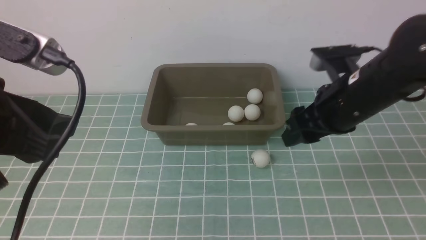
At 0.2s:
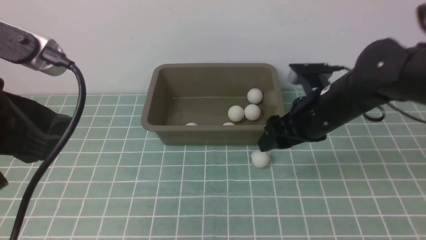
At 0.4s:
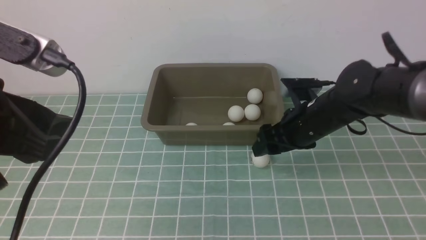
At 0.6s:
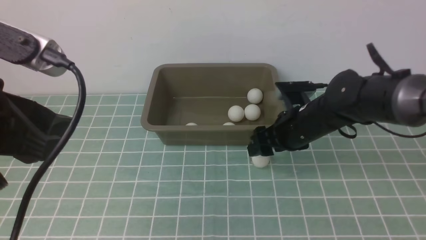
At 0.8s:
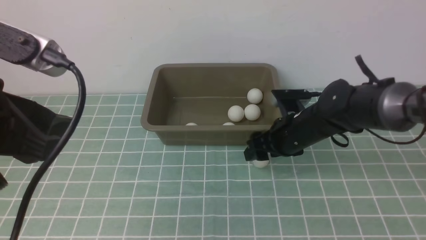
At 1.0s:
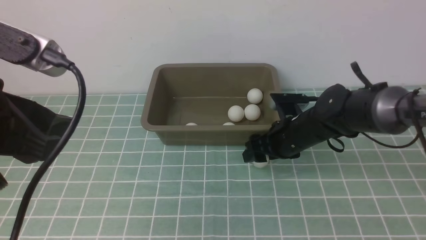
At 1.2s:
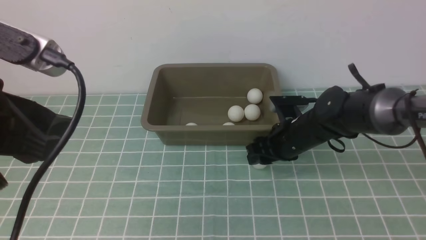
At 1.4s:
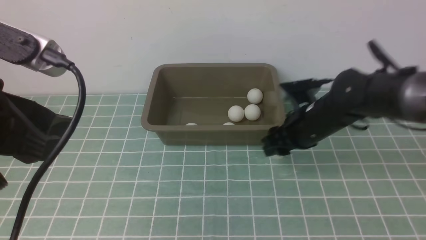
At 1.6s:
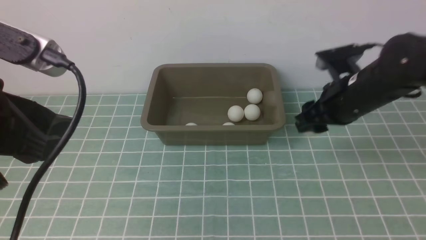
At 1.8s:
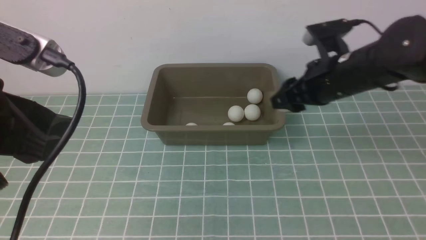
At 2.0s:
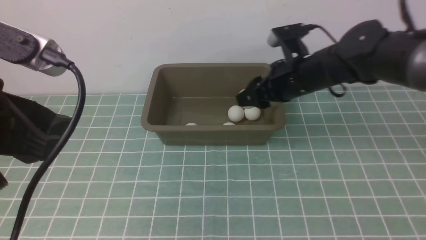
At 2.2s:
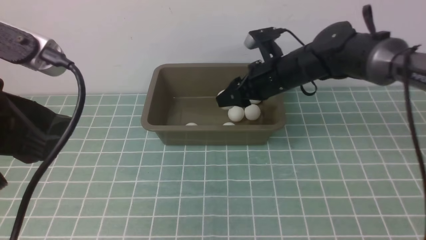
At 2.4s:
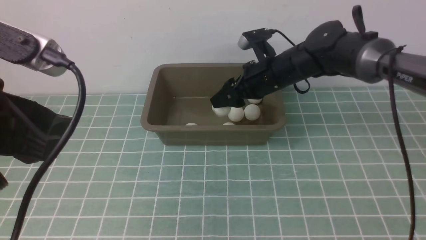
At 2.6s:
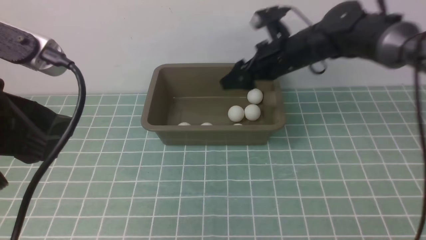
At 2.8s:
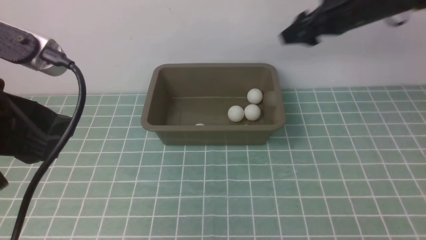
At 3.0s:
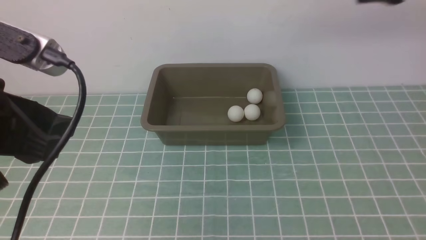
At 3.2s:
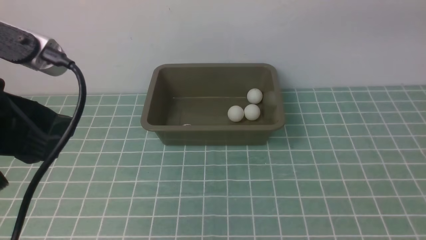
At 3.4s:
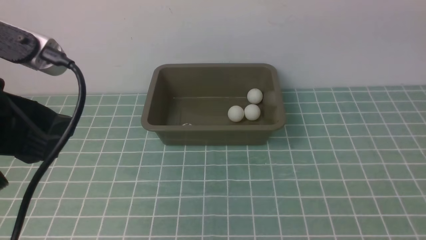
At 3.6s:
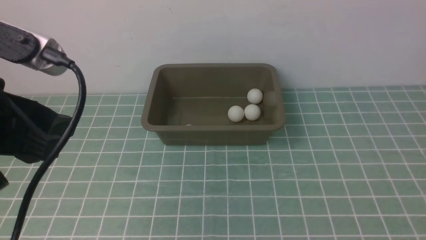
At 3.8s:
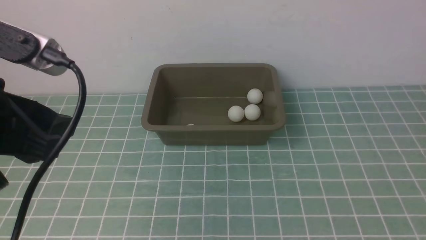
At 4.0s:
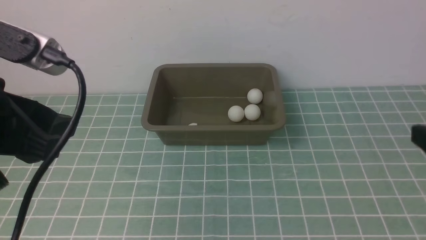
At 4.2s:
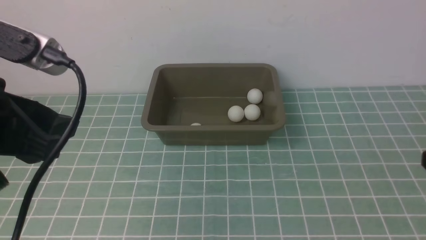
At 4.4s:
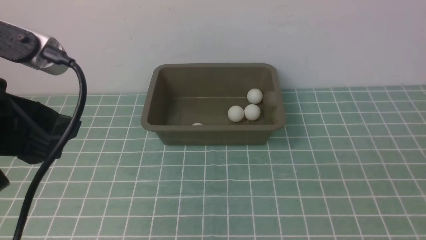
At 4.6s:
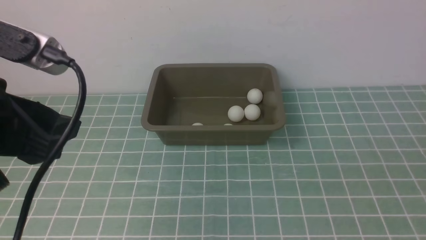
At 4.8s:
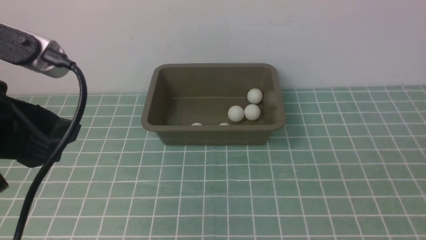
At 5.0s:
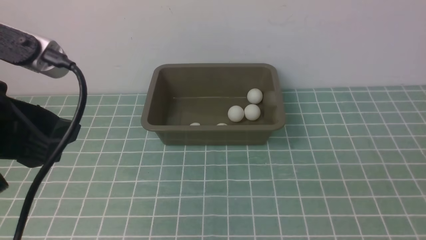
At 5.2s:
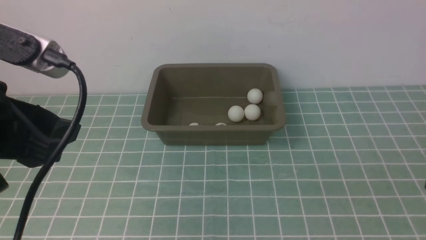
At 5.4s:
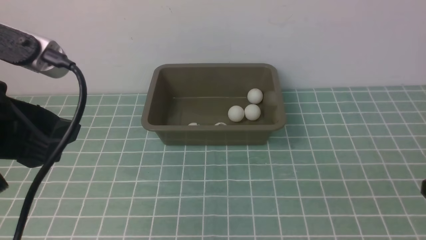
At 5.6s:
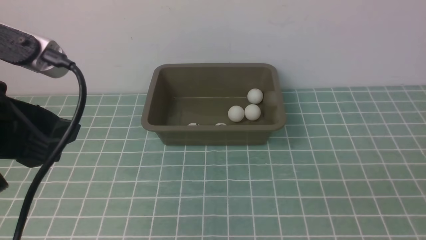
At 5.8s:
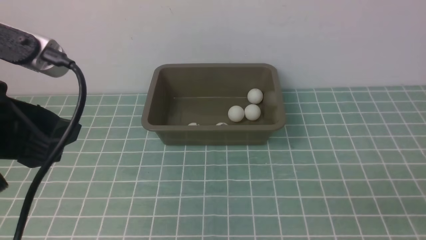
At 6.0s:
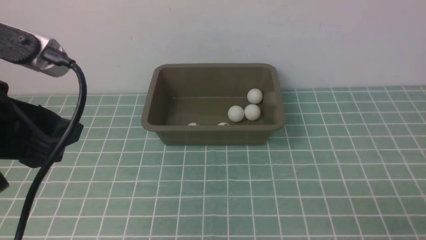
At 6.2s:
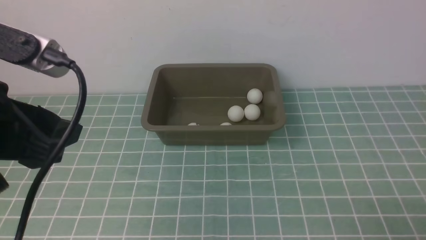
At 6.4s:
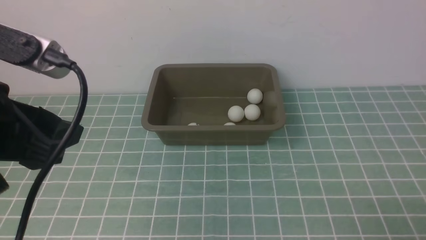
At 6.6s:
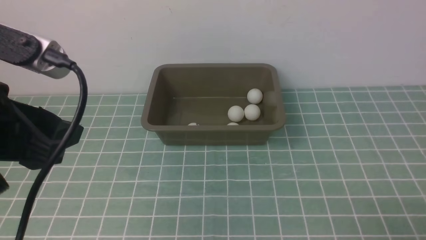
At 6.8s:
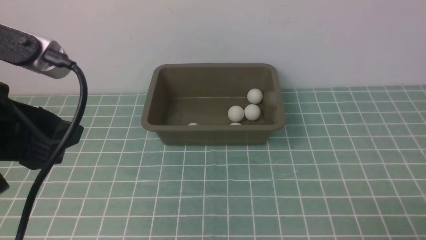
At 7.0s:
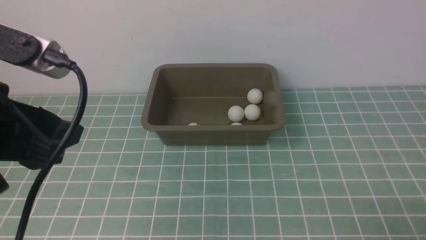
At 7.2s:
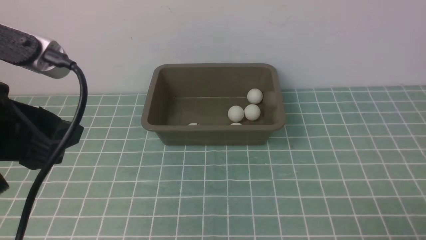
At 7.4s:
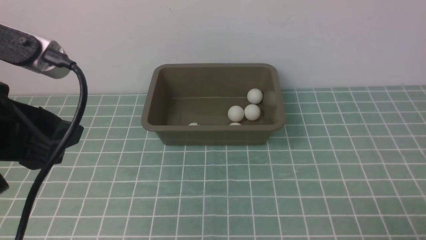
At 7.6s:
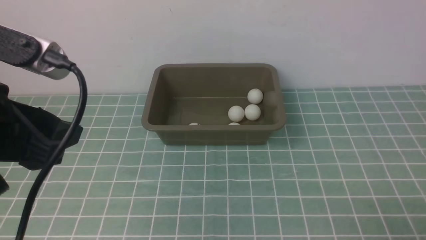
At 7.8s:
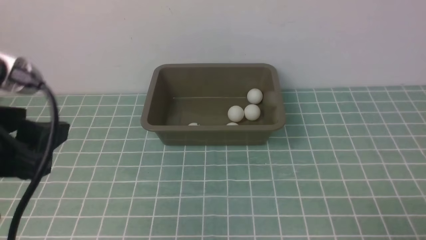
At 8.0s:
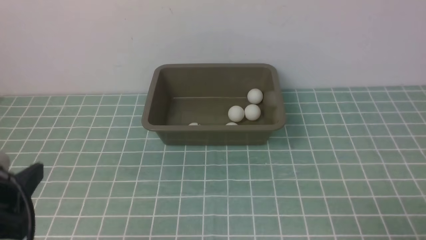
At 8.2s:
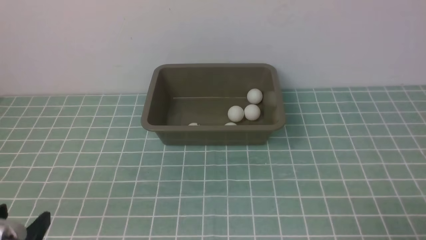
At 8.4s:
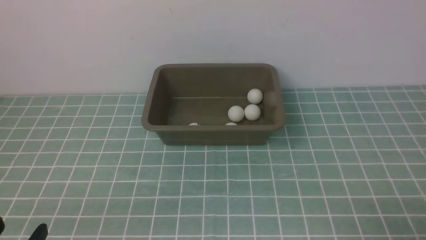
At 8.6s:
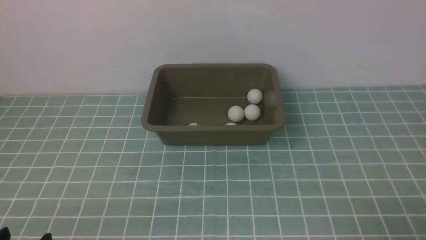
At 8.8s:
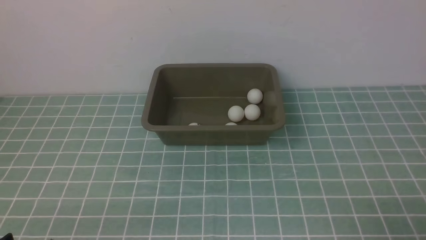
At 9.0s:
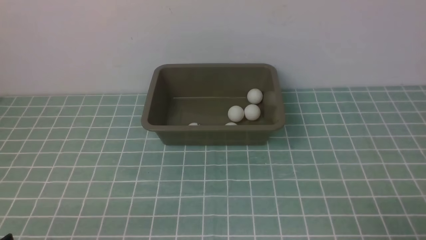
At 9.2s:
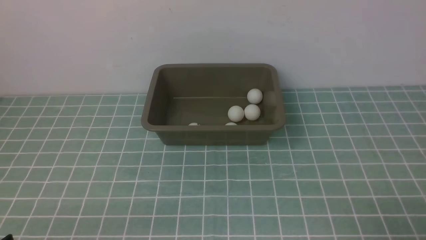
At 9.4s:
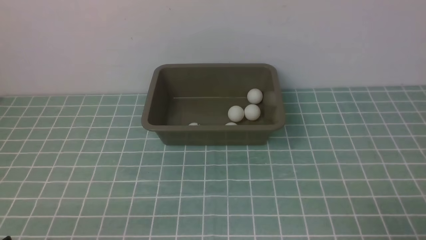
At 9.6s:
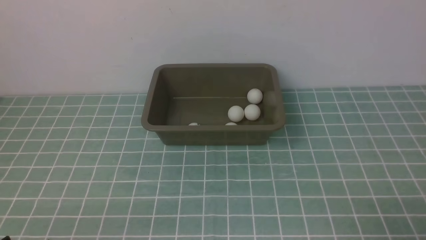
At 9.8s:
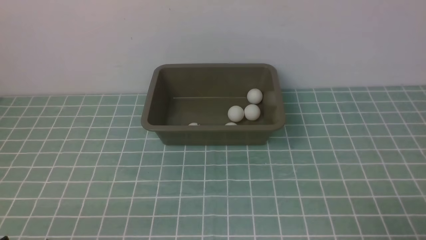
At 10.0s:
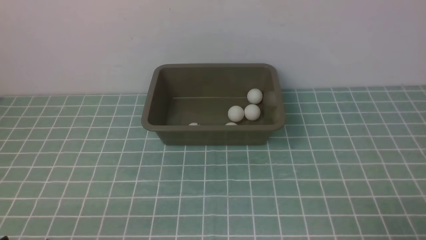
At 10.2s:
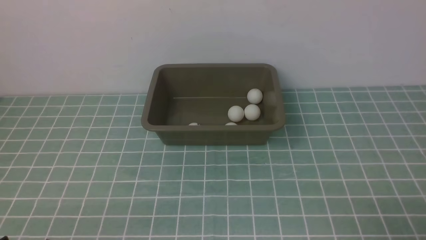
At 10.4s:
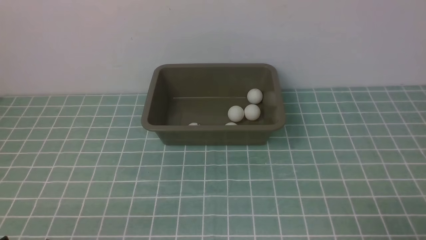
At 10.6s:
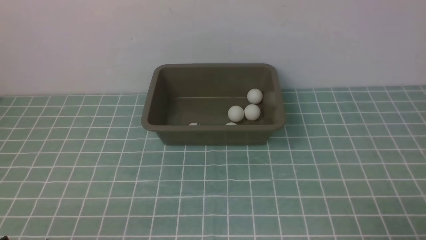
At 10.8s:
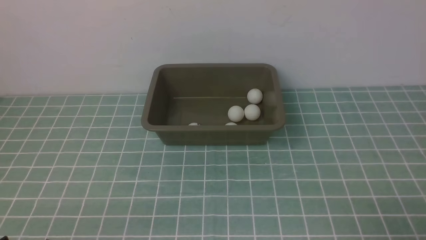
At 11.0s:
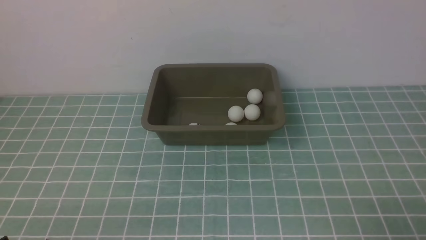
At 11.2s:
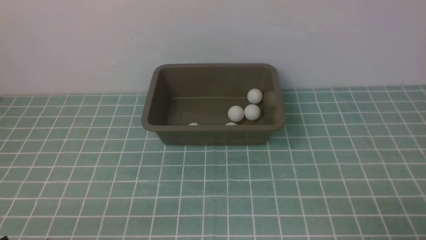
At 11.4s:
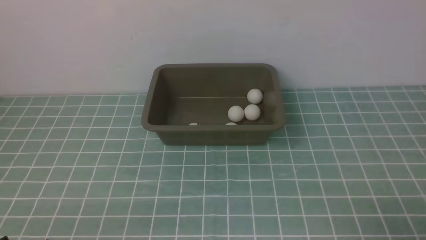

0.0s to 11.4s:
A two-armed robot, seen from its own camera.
Step, 1.6s to 2.6s: use the right arm to put the table tennis ball into the box.
0.0s to 1.4s: The right gripper goes downward and returns, about 10 cm each way, and closes its fingers.
1.4s to 2.8s: The right gripper heads upward, forward and to the right, covering about 15 cm, and opens up.
2.8s to 4.2s: The right gripper moves backward, some 30 cm.
7.2s to 8.6s: The left gripper is displaced downward and backward by some 20 cm.
10.0s to 11.4s: The two grippers keep their place.
